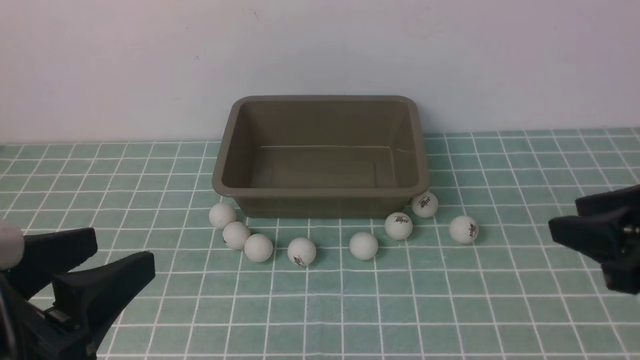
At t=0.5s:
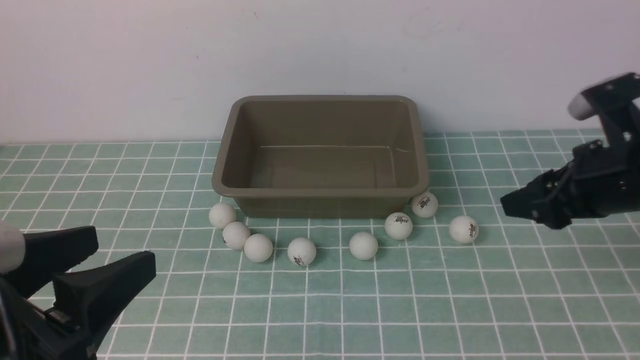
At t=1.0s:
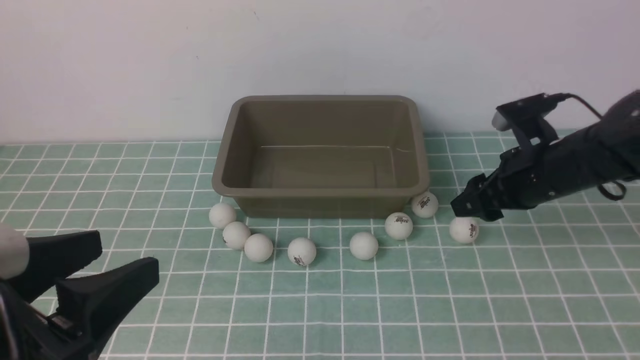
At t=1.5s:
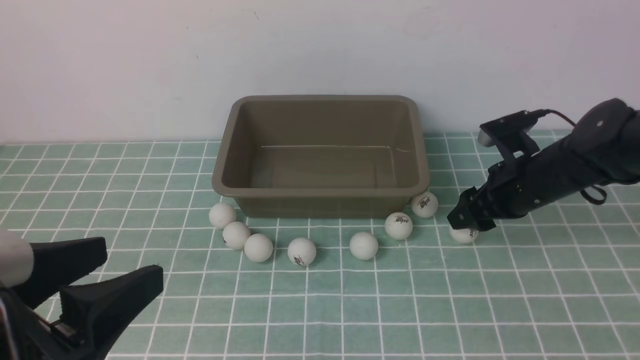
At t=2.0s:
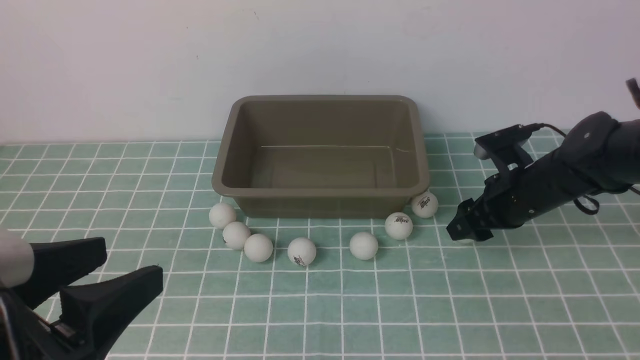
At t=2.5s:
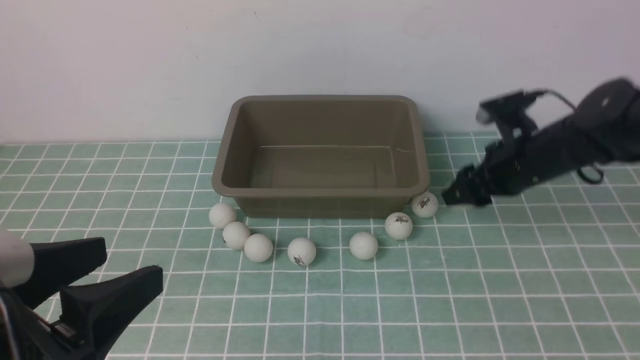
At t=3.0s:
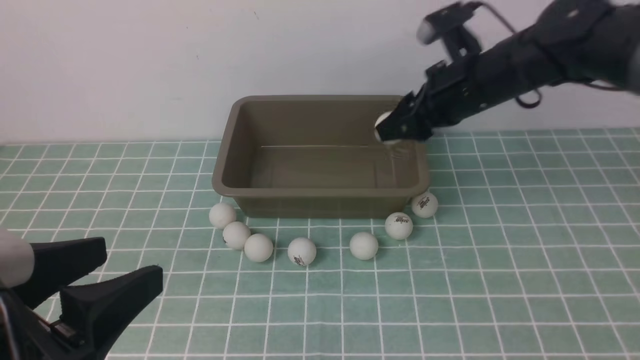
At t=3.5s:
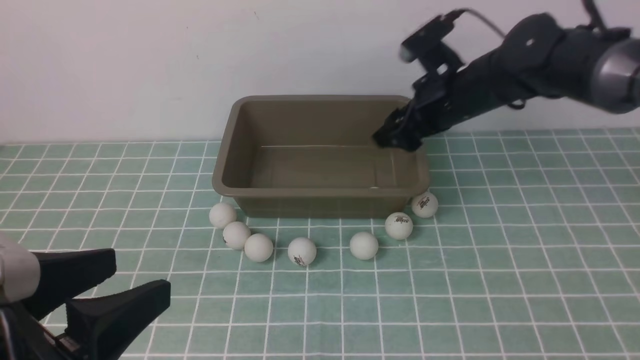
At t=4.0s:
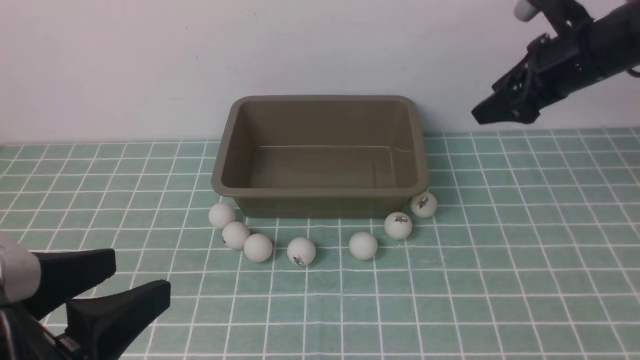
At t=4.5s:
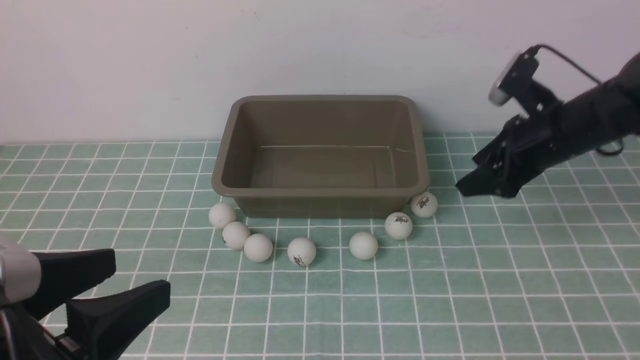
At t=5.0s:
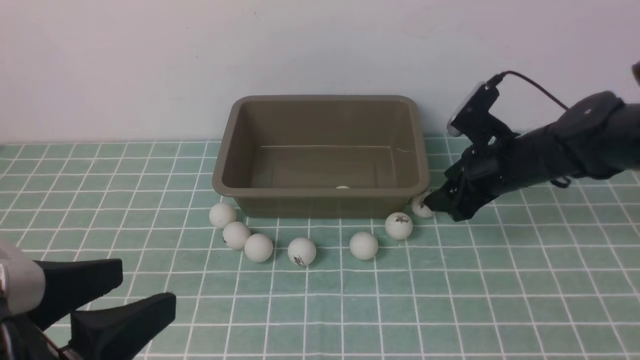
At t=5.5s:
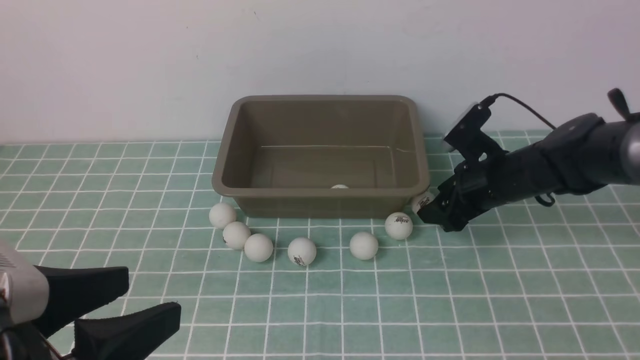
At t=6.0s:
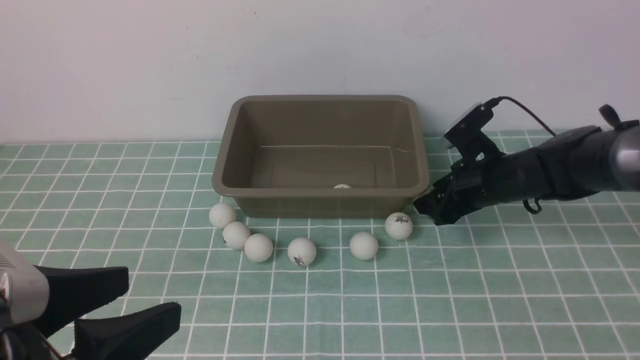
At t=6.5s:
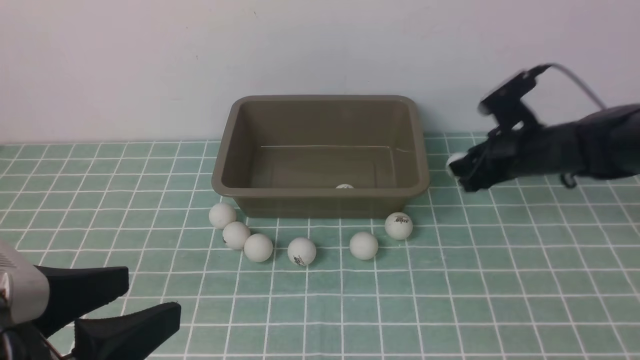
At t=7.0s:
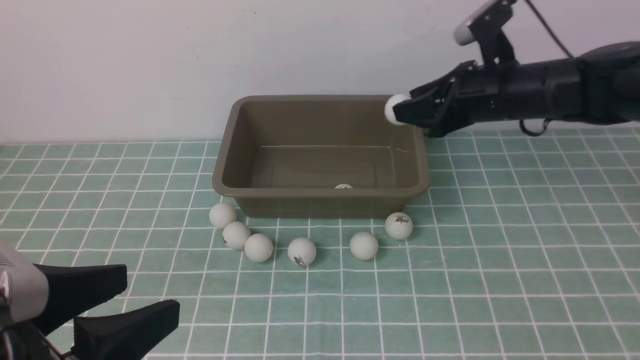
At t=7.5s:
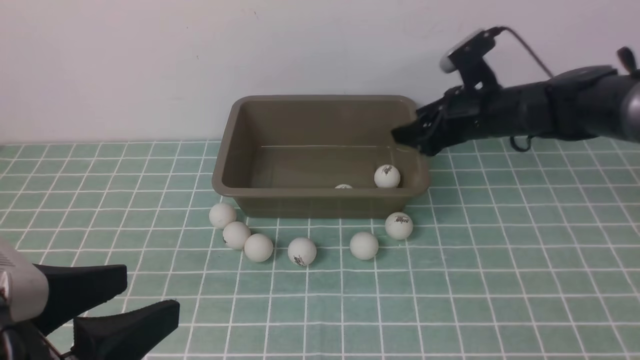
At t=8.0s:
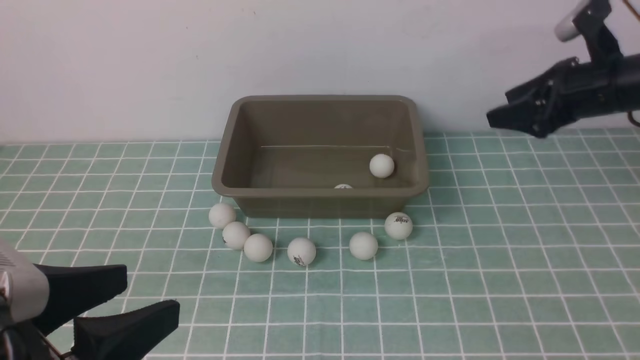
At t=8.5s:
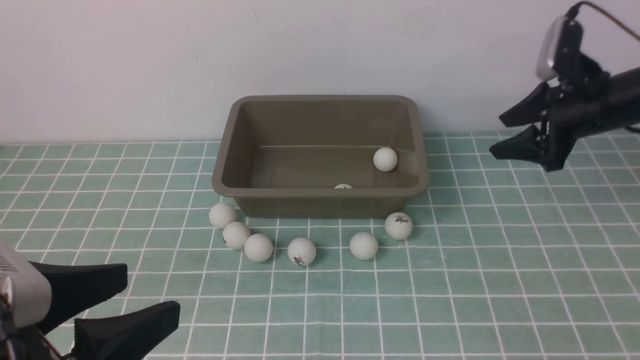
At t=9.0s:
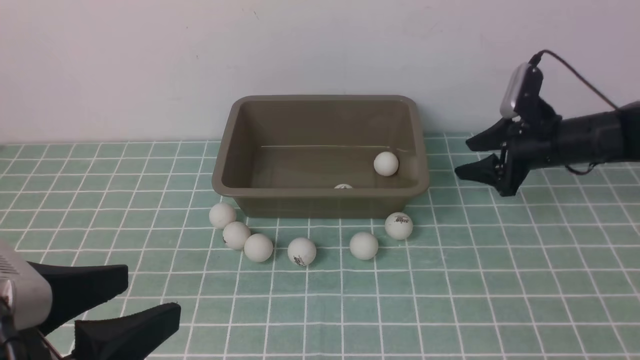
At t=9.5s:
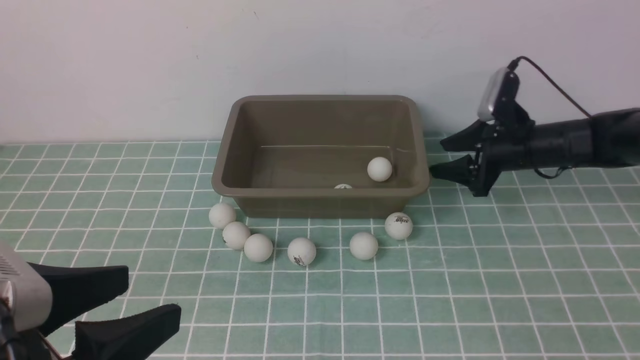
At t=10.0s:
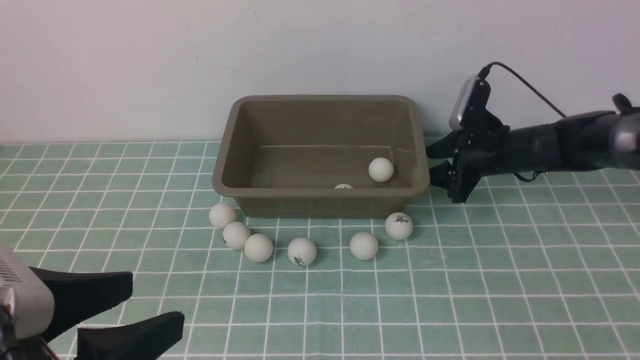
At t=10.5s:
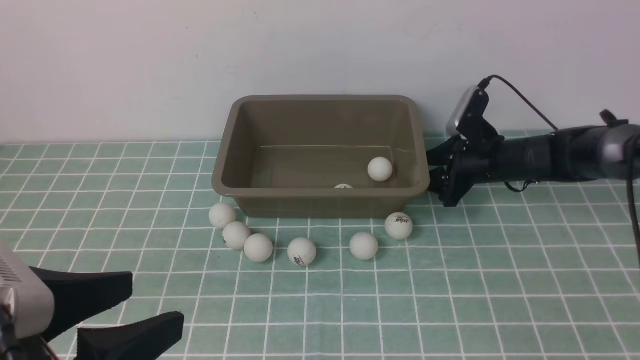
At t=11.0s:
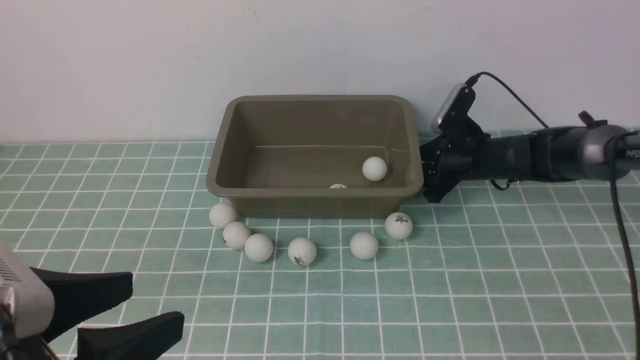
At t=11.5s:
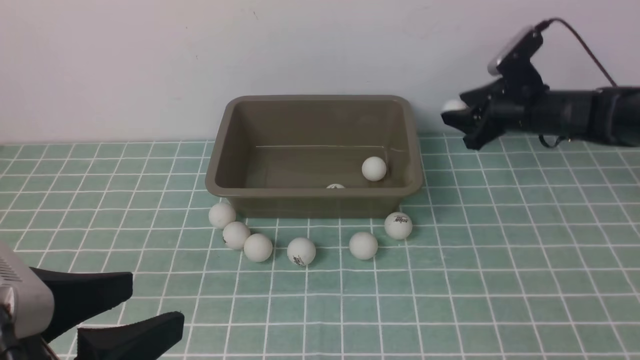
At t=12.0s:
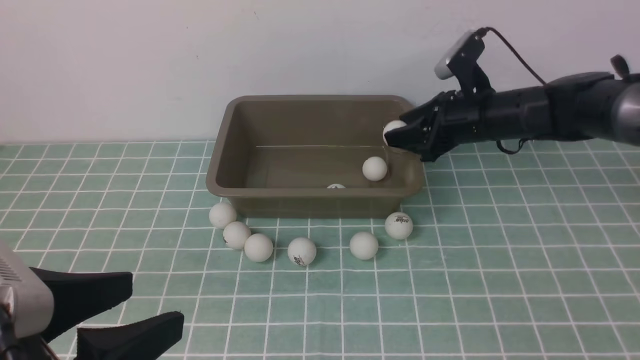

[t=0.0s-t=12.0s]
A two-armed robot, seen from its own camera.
Step, t=0.0s to t=2.5s: use the right arm to clamp the table tennis ball closest to it.
Step, t=3.0s to t=3.5s: use the right arm to put the table tennis ball into the box.
Step, t=4.0s to t=6.5s: use the right arm to clamp the table tennis ball closest to it.
Step, t=7.0s to t=7.5s: use the right arm to put the table tennis ball into the box.
Step, t=8.0s to t=11.0s: use the right arm to clamp the table tennis ball closest to it.
t=0.0s to t=2.0s: The right gripper heads downward and forward, covering some 15 cm.
t=2.0s to t=4.0s: The right gripper moves upward, approximately 15 cm.
t=4.0s to t=6.0s: The right gripper heads downward, covering about 15 cm, and closes its fingers.
t=6.0s to t=8.0s: The right gripper moves upward and to the right, roughly 15 cm, and opens its fingers.
t=8.0s to t=10.0s: The right gripper moves downward, to the left and forward, about 15 cm.
t=10.0s to t=12.0s: The right gripper shifts some 5 cm upward.

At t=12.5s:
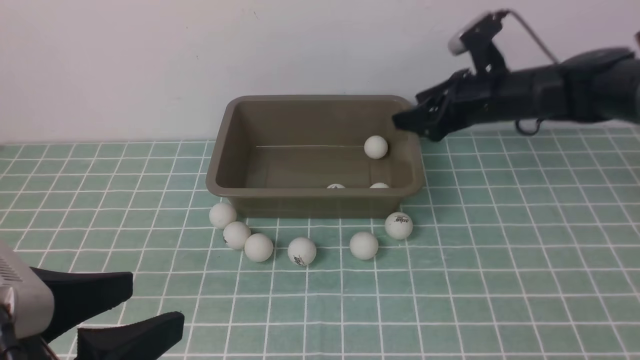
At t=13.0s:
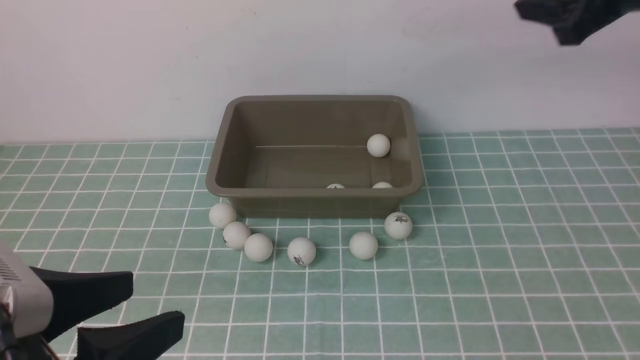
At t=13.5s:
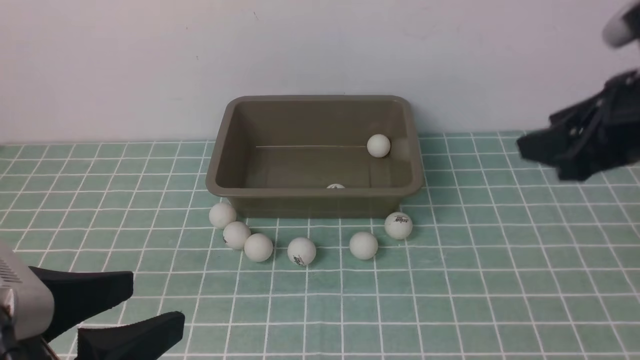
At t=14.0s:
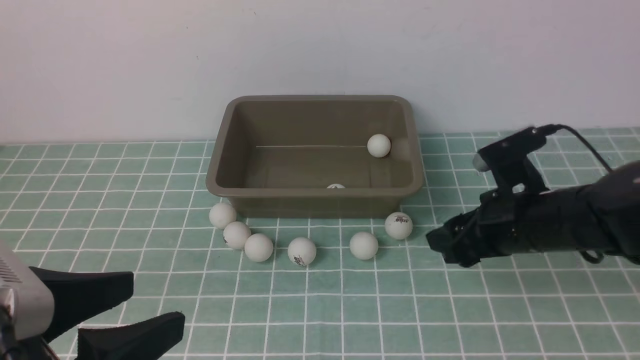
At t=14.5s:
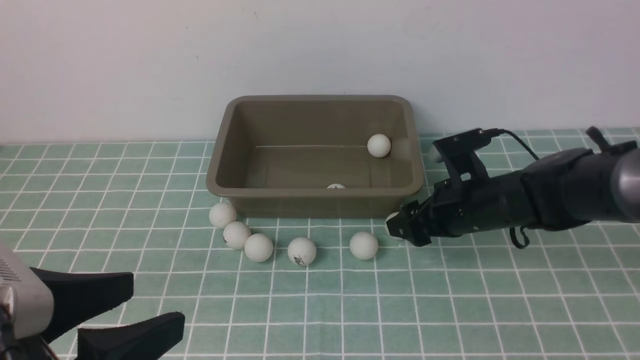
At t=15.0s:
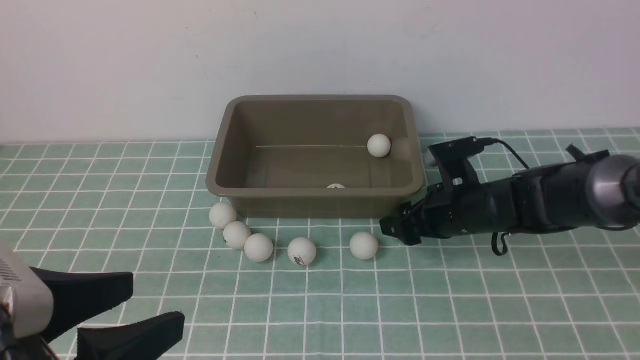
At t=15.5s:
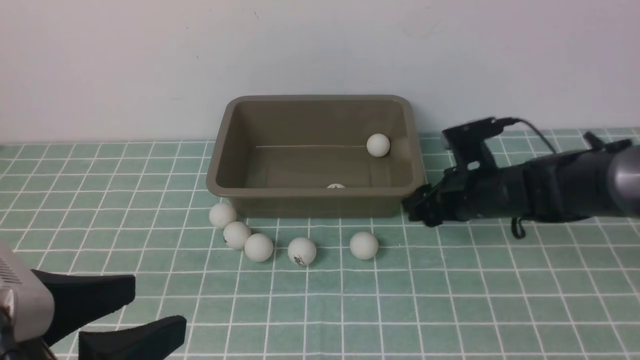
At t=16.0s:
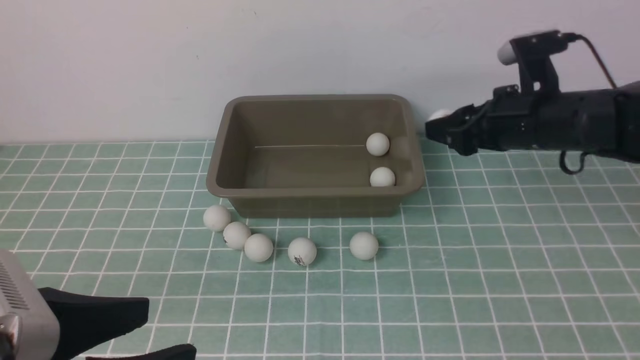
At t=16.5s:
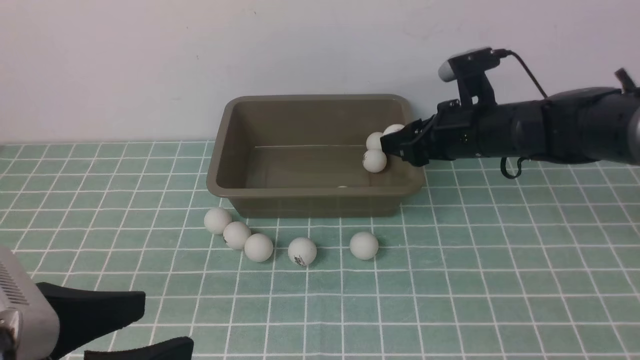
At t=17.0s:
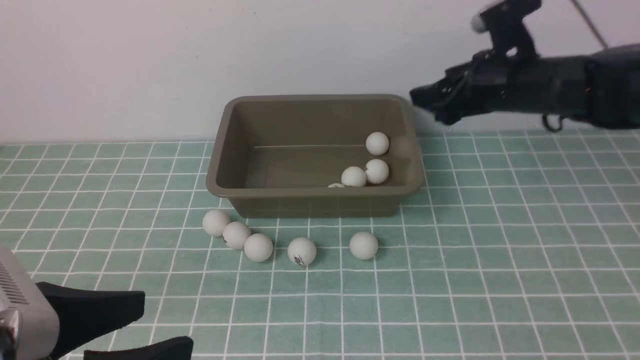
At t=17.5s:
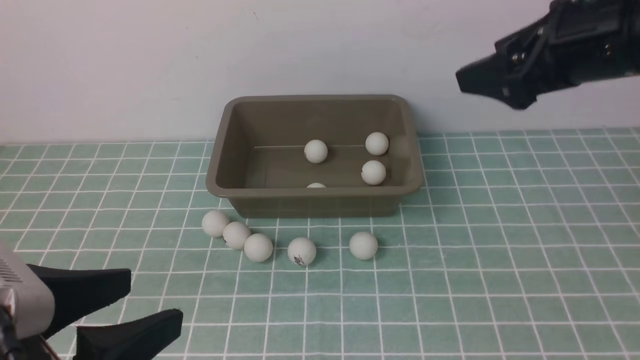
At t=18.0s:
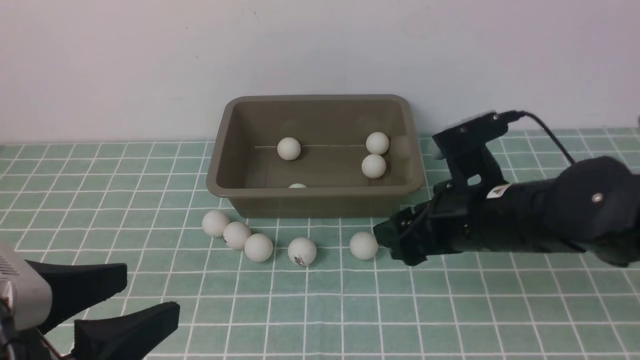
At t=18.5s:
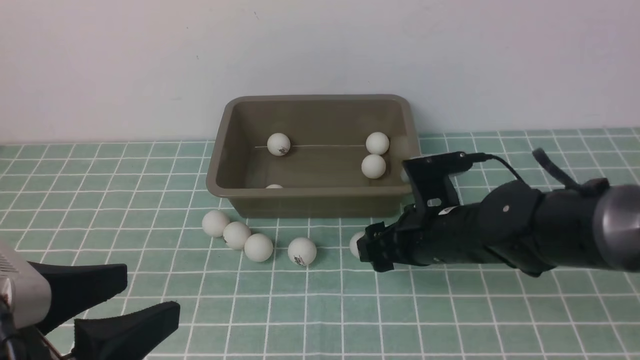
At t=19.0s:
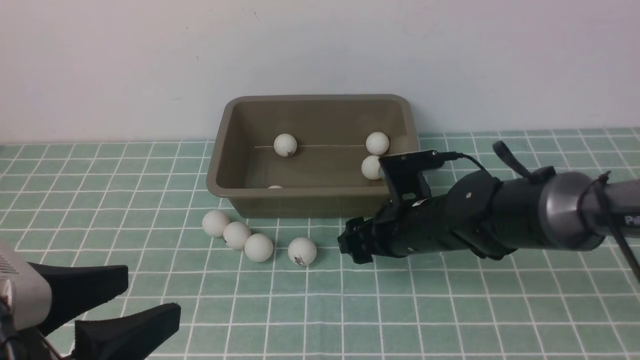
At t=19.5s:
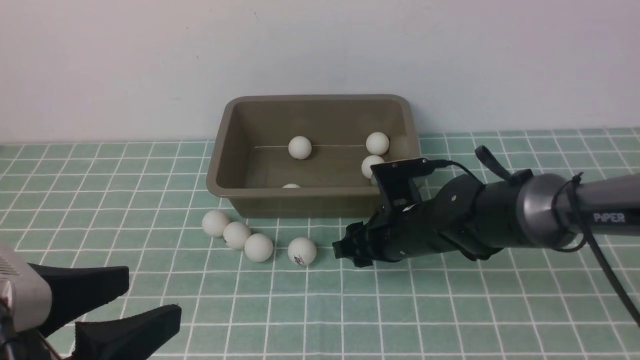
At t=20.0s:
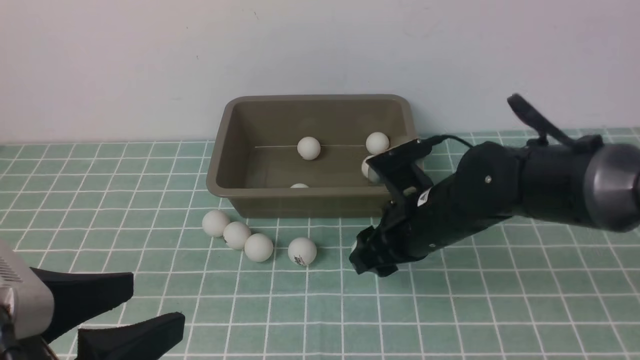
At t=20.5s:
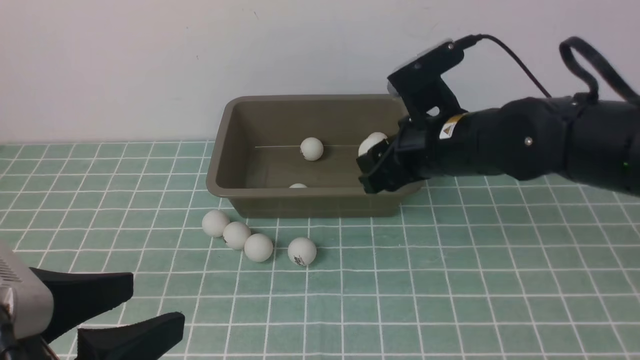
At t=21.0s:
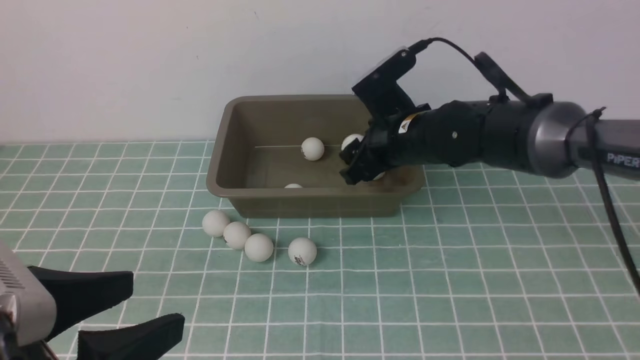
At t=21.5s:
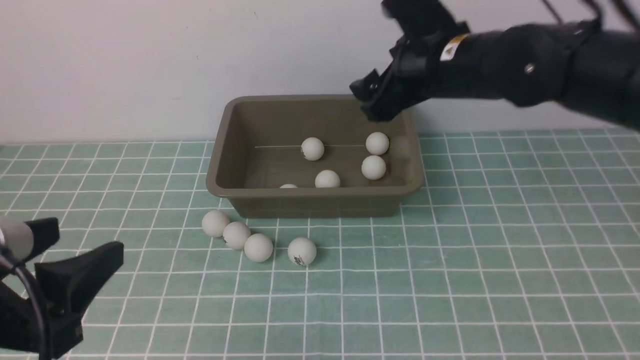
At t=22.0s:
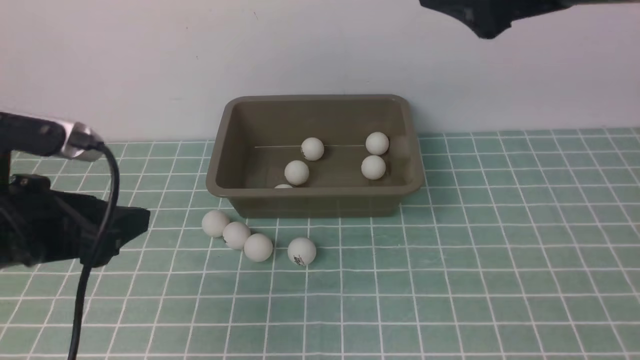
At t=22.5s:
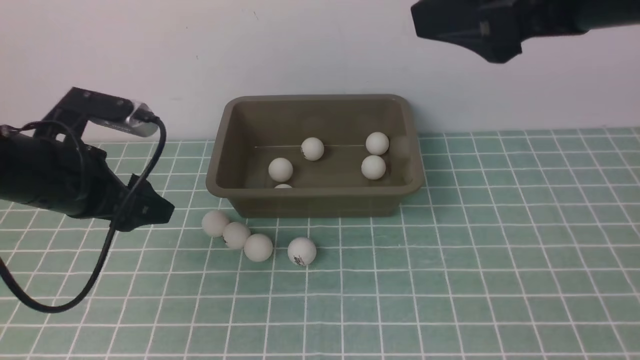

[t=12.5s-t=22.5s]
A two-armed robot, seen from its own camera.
Step, t=12.5s to t=15.5s: use the right arm to clamp the table tennis ball closest to it.
Step, t=16.0s to t=16.5s: use the right arm to put the table tennis ball into the box.
Step, t=17.0s to t=19.5s: use the right arm to clamp the table tennis ball closest to it.
Step, t=20.0s to t=21.0s: use the right arm to put the table tennis ball into the box.
t=12.5s to t=14.5s: The right gripper heads downward and backward, covering some 15 cm.
t=14.5s to t=16.5s: The right gripper moves upward, about 10 cm.
t=16.5s to t=18.5s: The right gripper goes some 15 cm backward, to the left and downward, and opens up.
t=18.5s to t=20.5s: The right gripper heads upward, covering approximately 10 cm, and closes its fingers.
t=20.5s to t=22.5s: The left gripper moves forward, about 20 cm, while the right gripper travels upward and backward by about 25 cm, and opens.
